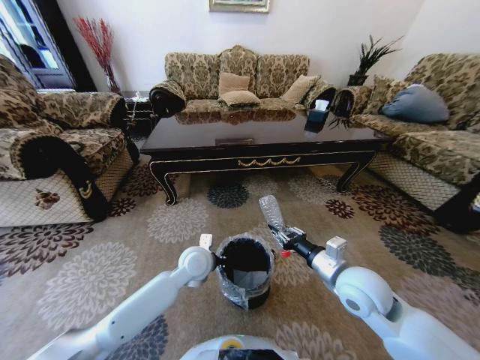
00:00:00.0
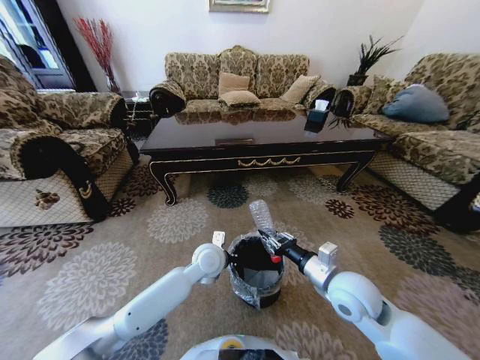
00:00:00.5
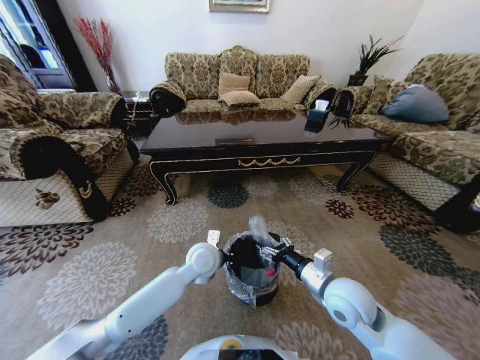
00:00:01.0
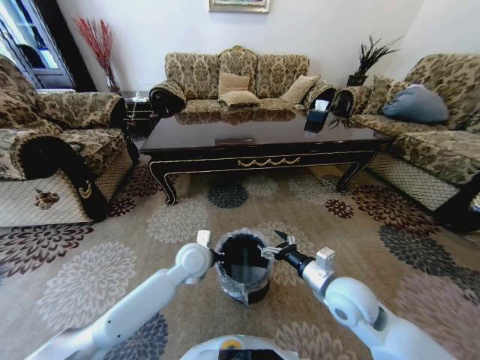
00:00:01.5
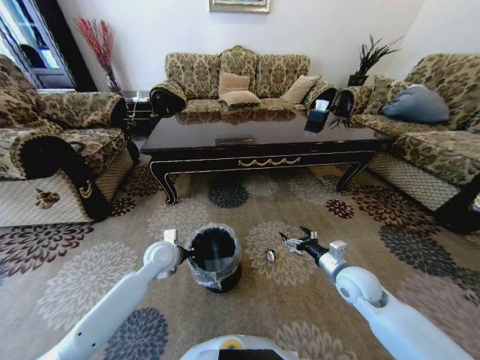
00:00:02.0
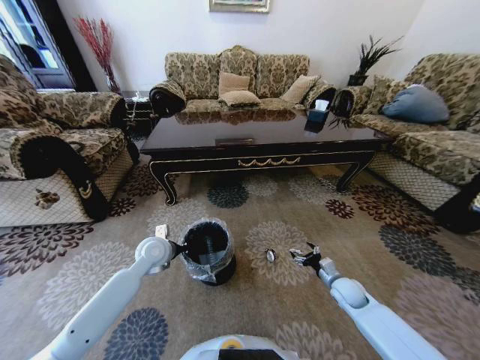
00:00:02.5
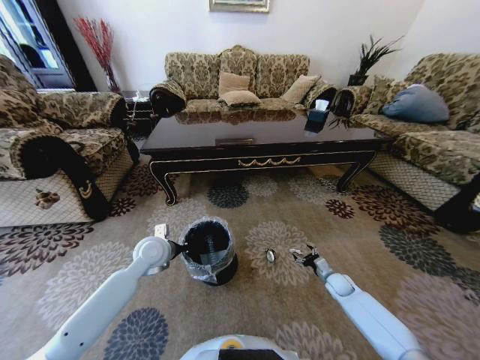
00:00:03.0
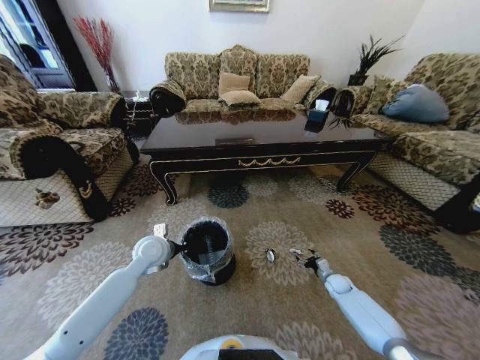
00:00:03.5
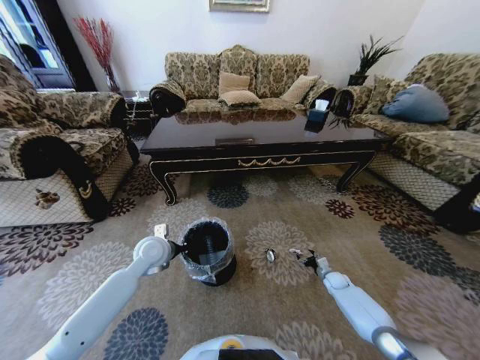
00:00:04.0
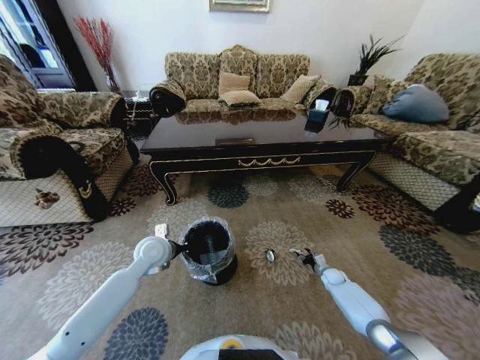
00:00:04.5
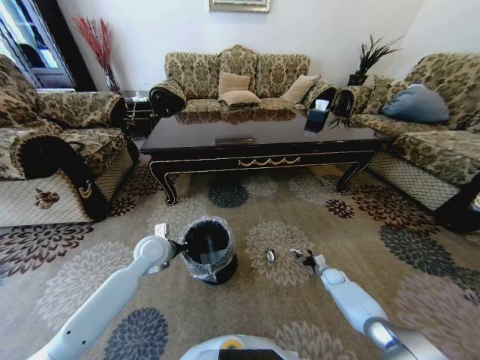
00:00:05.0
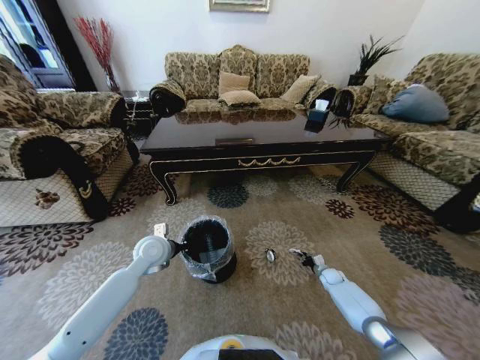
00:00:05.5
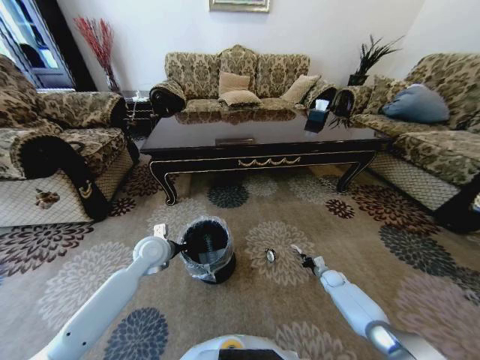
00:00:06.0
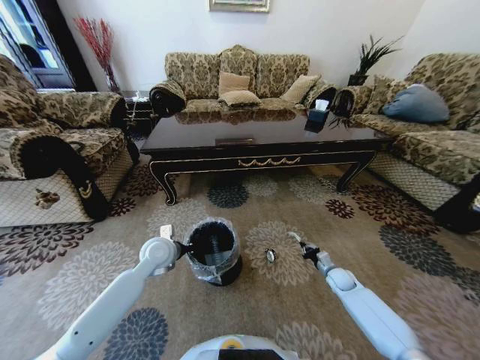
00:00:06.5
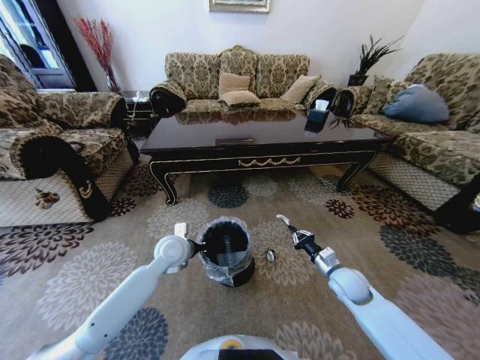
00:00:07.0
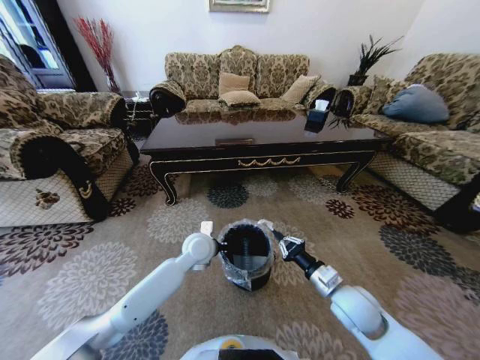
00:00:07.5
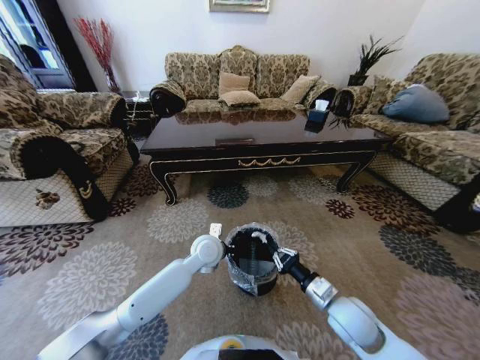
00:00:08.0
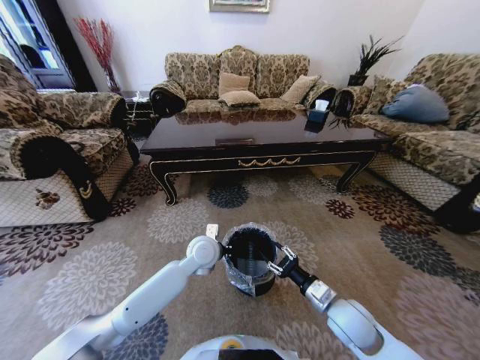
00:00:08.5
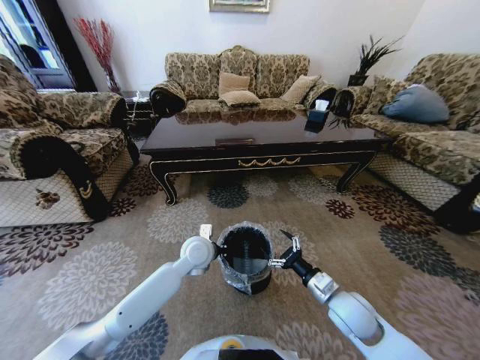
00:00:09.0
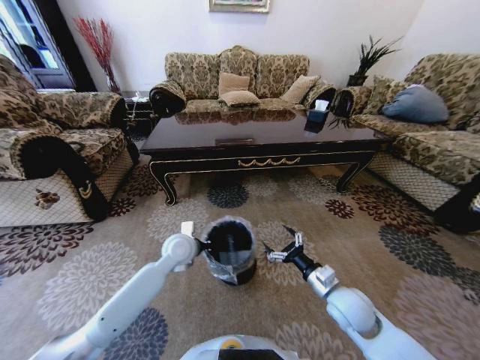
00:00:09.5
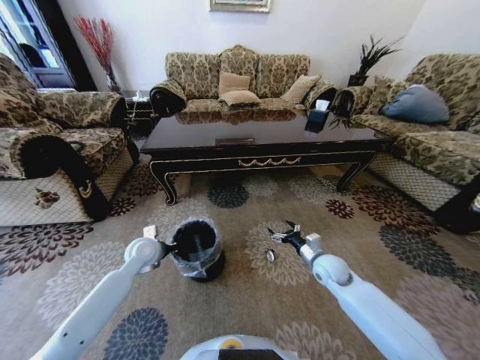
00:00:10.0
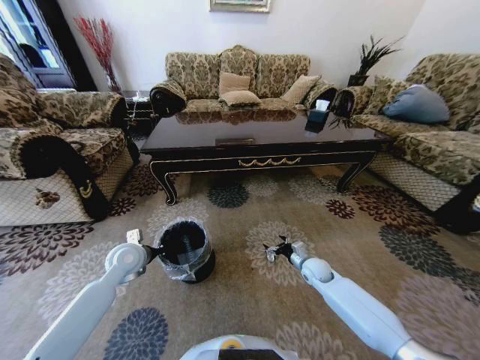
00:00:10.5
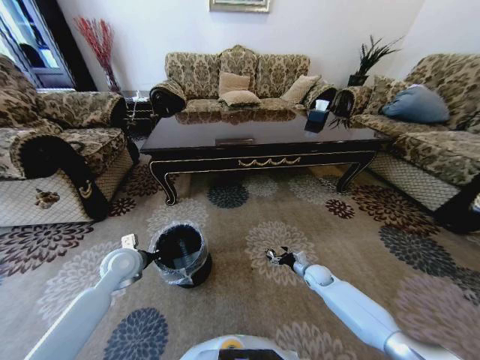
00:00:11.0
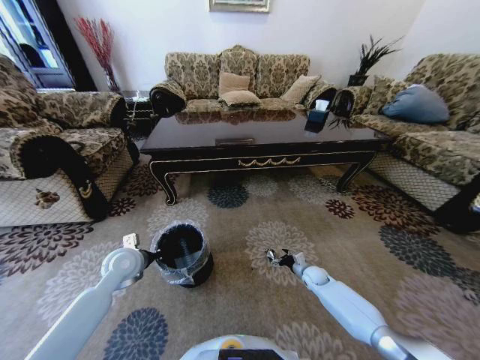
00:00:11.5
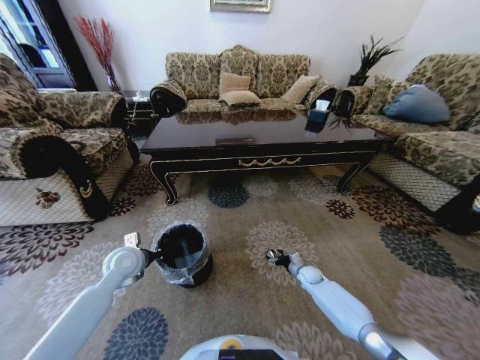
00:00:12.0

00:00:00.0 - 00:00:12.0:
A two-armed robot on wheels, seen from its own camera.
Task of the whole recording: Move to the front of the table and pick up the trash from the floor, then place it into the trash bin.
00:00:00.0 - 00:00:02.0: The right gripper travels downward and to the right by some 10 cm, and opens up, while the left gripper travels to the left by some 10 cm.
00:00:02.0 - 00:00:04.0: The right gripper shifts about 30 cm downward and to the right.
00:00:04.0 - 00:00:06.0: The right gripper closes.
00:00:06.0 - 00:00:08.0: The left gripper shifts some 15 cm to the right. The right gripper moves upward, backward and to the left, roughly 35 cm.
00:00:08.0 - 00:00:10.0: The right gripper travels forward by some 15 cm, and opens. The left gripper shifts some 20 cm to the left.
00:00:10.0 - 00:00:12.0: The right gripper travels downward by some 20 cm, while the left gripper ends up approximately 5 cm from where it was.

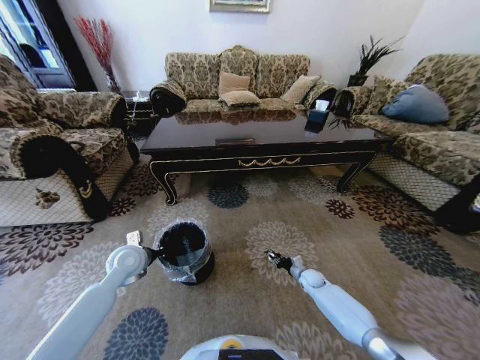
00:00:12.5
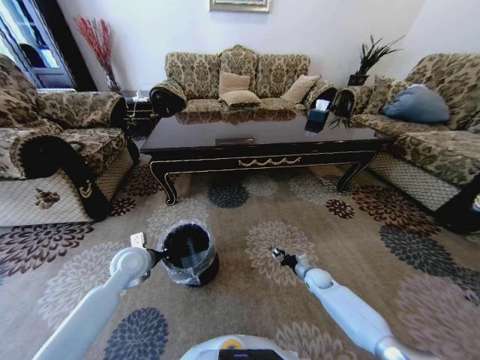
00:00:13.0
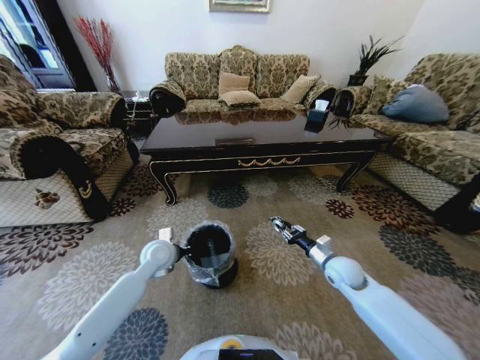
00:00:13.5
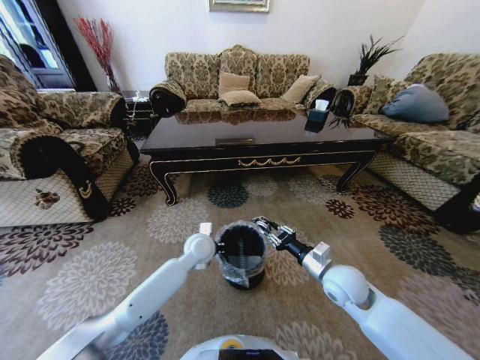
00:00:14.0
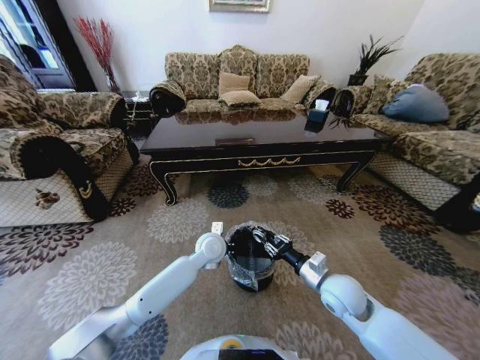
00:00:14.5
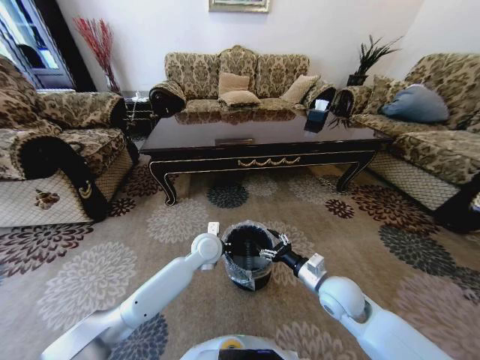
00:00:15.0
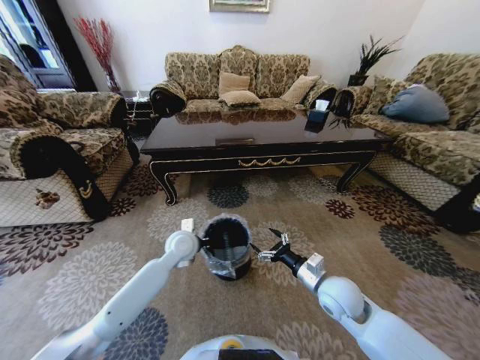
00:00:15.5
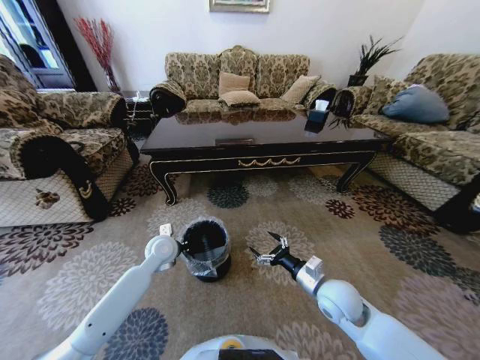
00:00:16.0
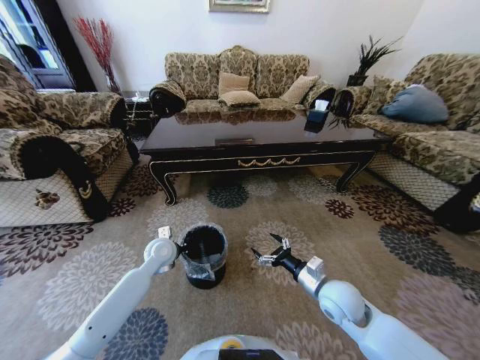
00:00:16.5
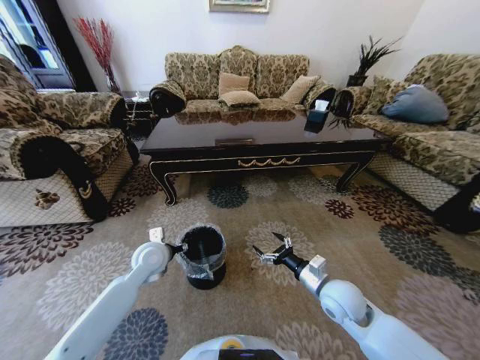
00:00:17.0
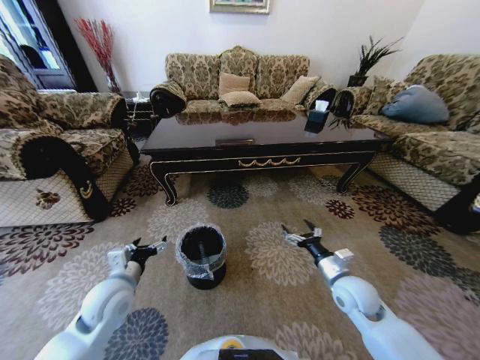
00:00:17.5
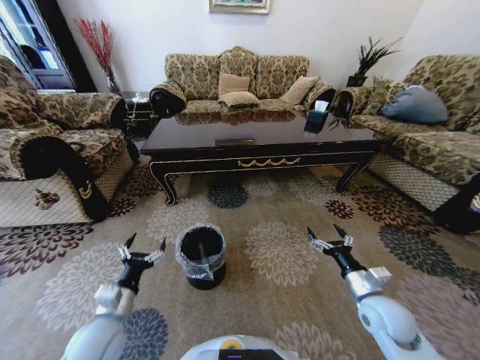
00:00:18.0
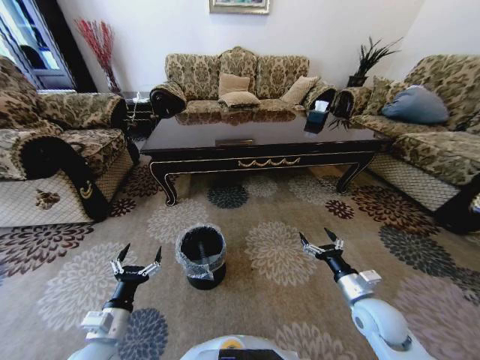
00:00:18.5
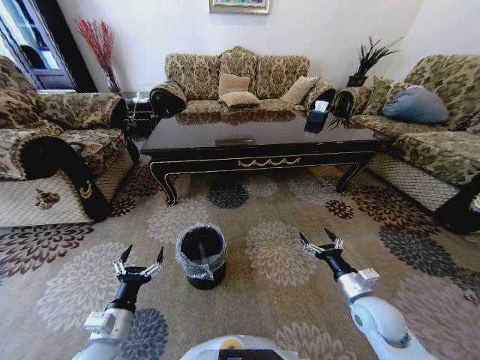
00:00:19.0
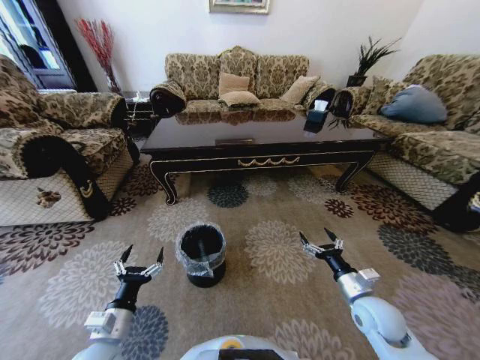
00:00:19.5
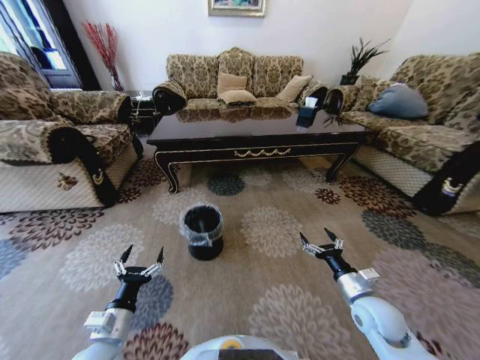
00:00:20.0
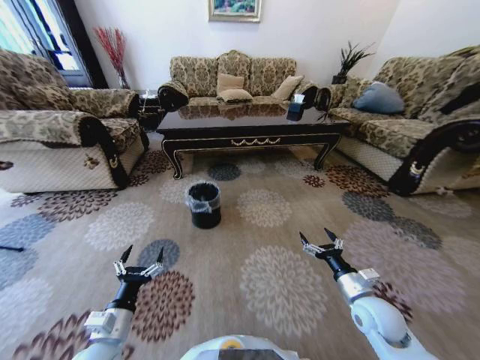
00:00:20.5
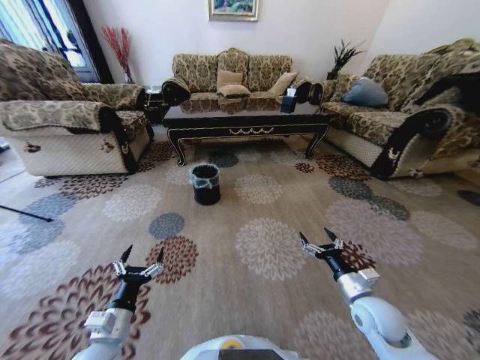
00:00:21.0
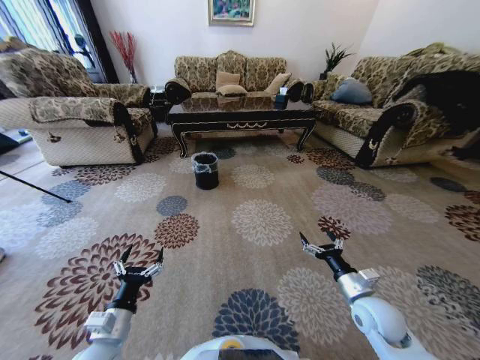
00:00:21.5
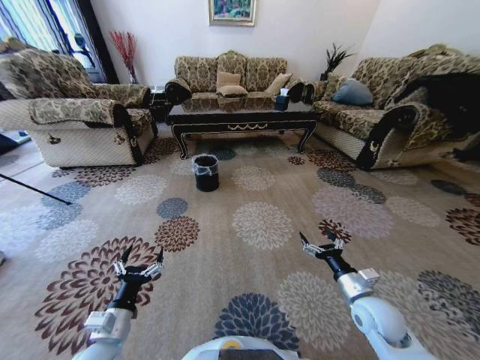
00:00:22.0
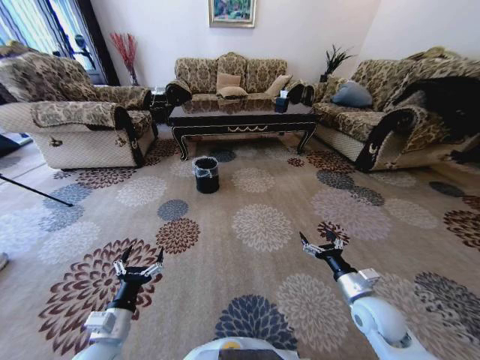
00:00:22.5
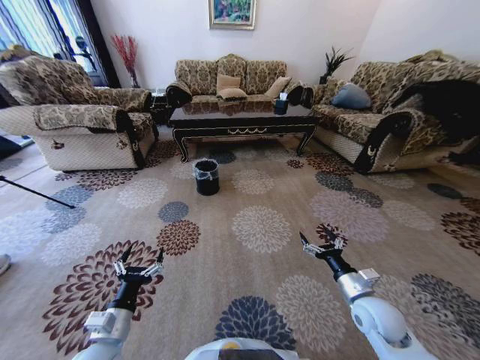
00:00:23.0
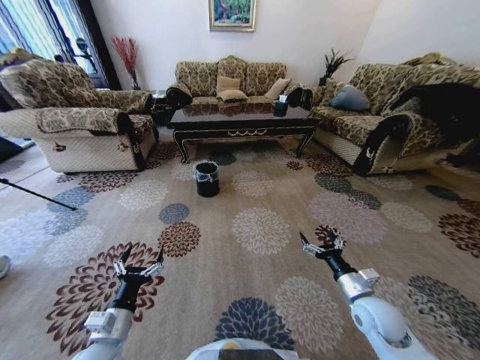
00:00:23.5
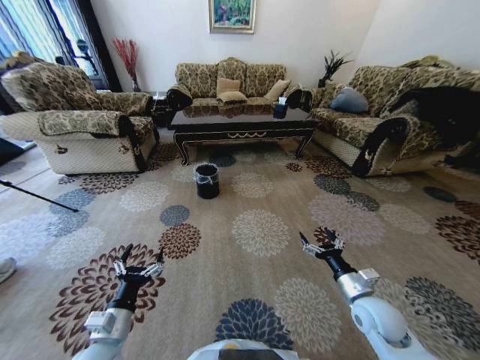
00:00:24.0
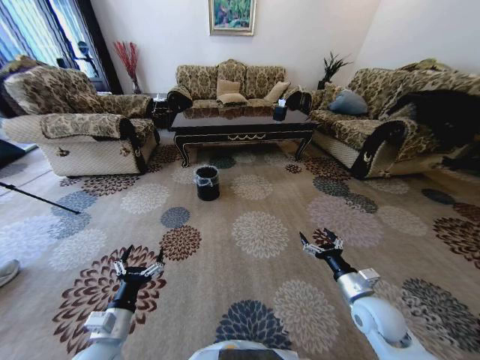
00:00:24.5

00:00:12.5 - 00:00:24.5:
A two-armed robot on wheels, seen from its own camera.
Task of the whole recording: Move to the front of the table and pick up the trash from the floor, then place it into the trash bin.
00:00:12.5 - 00:00:14.5: The left gripper moves to the right, about 25 cm, while the right gripper heads upward and backward, covering approximately 30 cm.
00:00:14.5 - 00:00:16.5: The right gripper opens, while the left gripper heads to the left, covering about 15 cm.
00:00:16.5 - 00:00:18.5: The left gripper moves backward, some 25 cm, and opens up. Meanwhile the right gripper moves to the right, roughly 10 cm.
